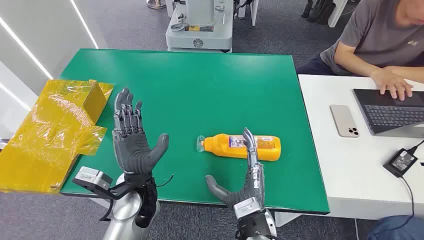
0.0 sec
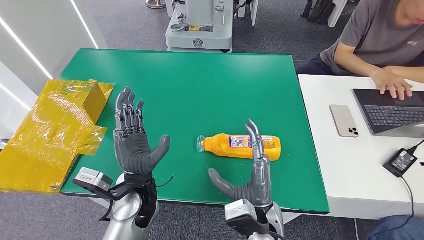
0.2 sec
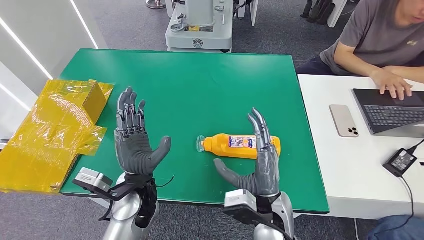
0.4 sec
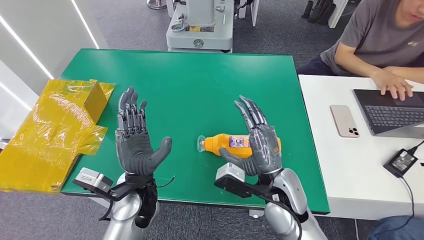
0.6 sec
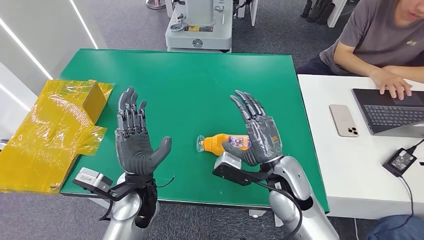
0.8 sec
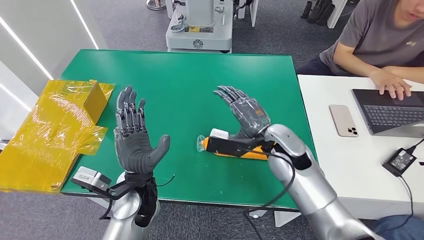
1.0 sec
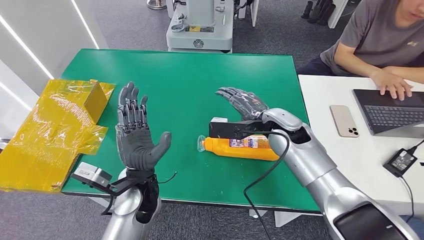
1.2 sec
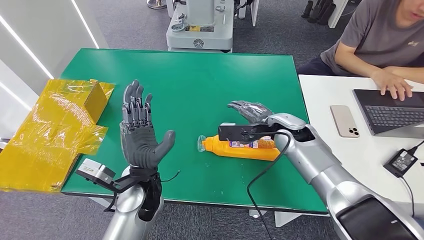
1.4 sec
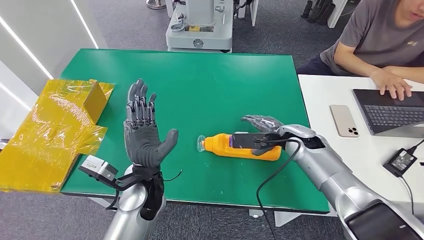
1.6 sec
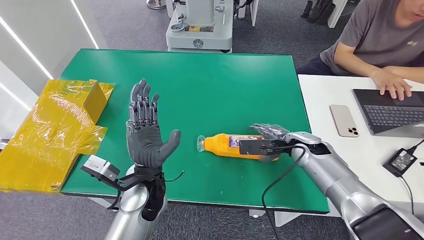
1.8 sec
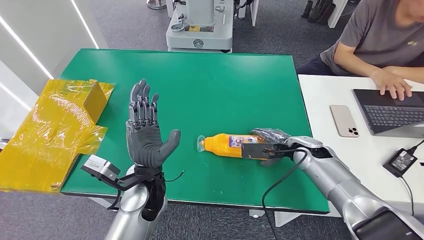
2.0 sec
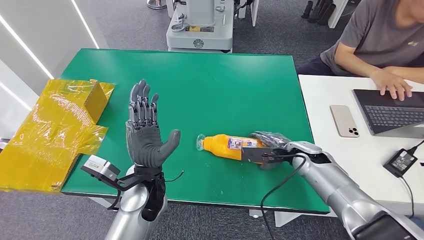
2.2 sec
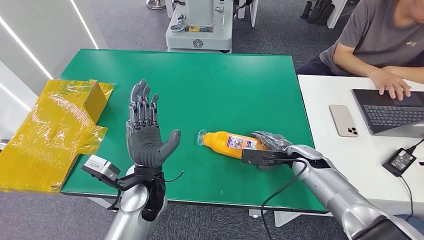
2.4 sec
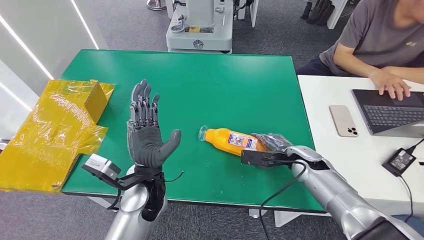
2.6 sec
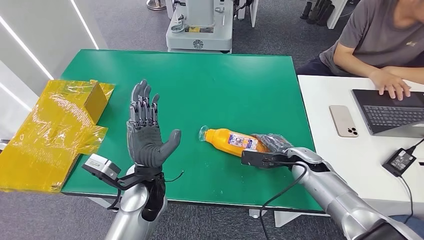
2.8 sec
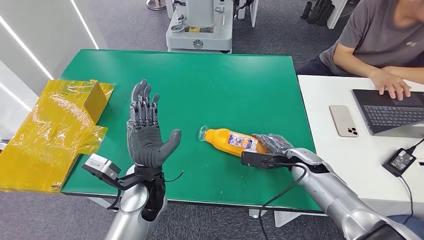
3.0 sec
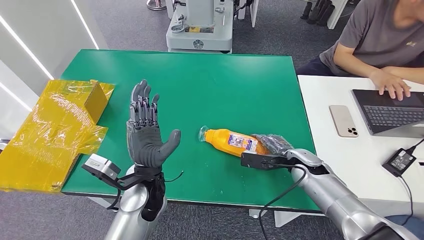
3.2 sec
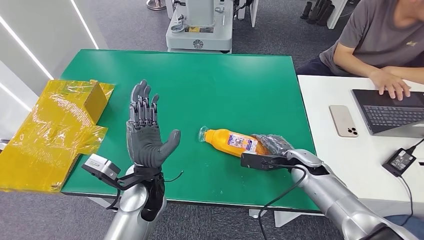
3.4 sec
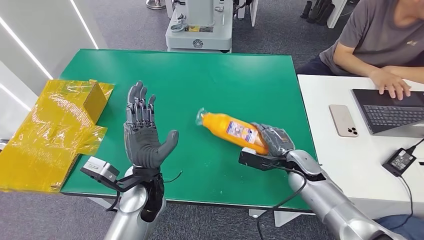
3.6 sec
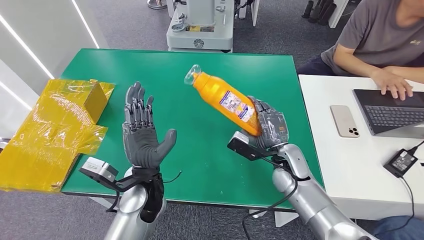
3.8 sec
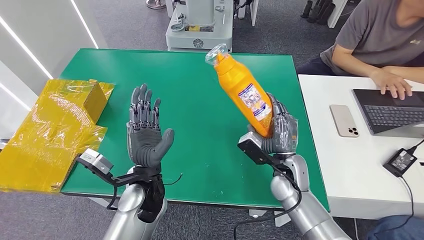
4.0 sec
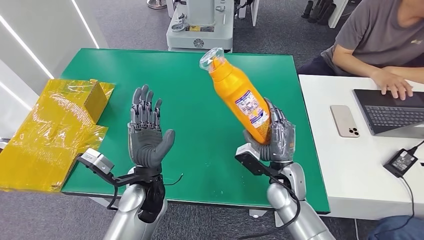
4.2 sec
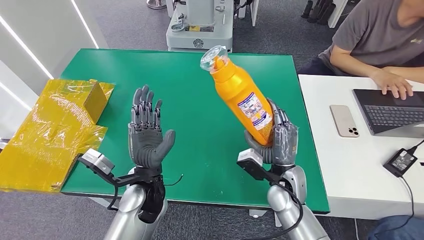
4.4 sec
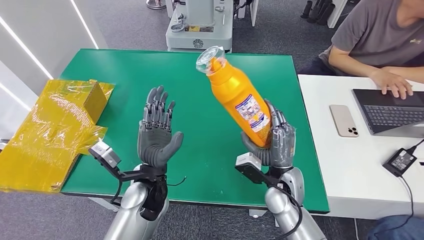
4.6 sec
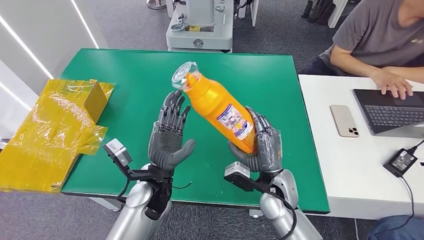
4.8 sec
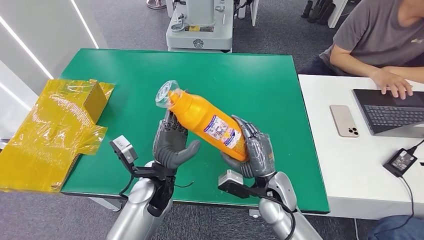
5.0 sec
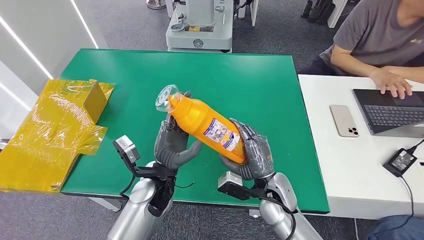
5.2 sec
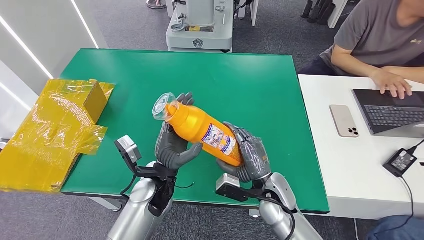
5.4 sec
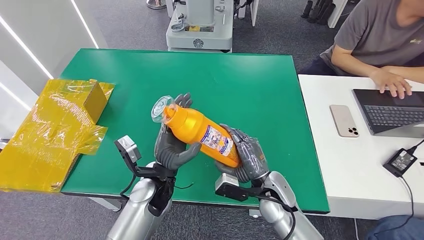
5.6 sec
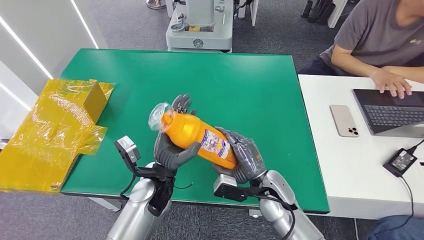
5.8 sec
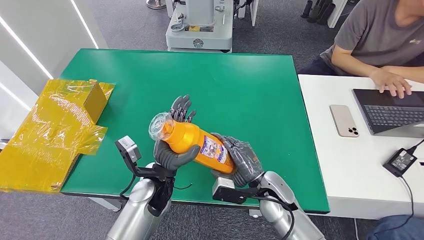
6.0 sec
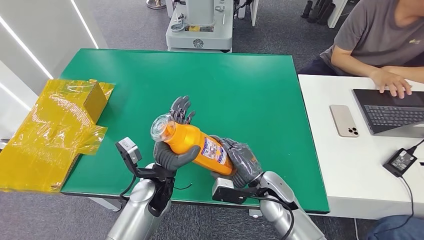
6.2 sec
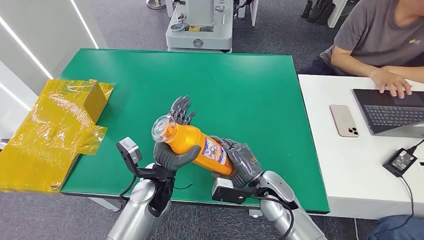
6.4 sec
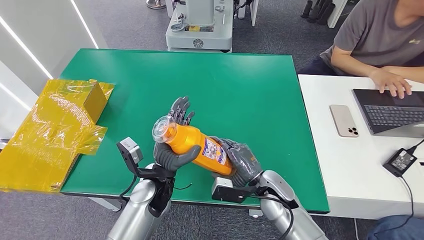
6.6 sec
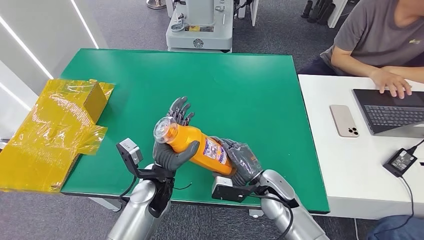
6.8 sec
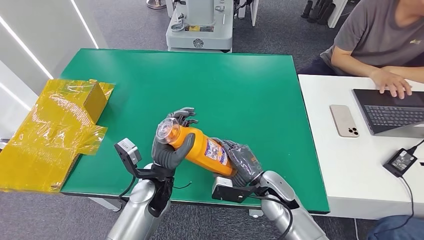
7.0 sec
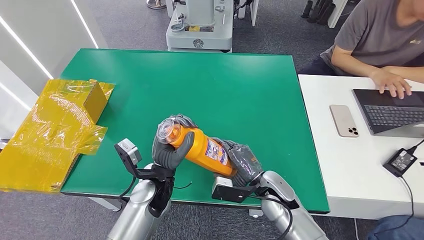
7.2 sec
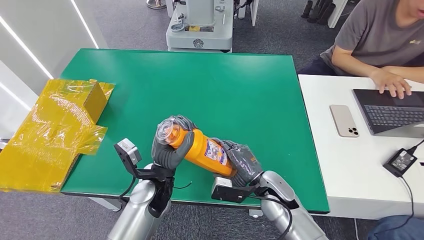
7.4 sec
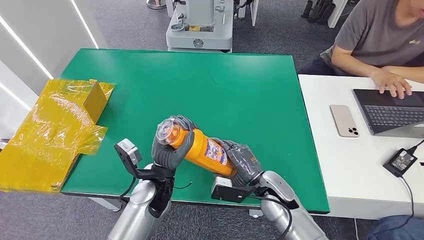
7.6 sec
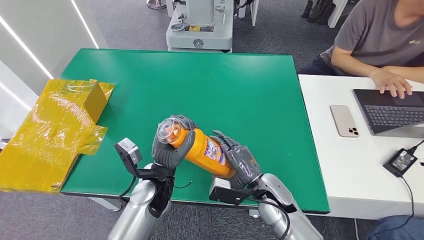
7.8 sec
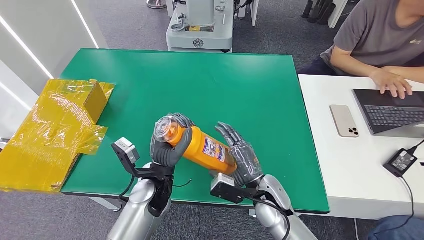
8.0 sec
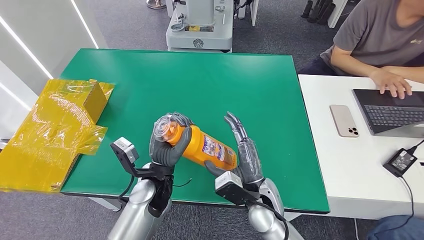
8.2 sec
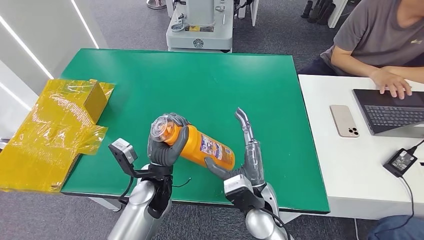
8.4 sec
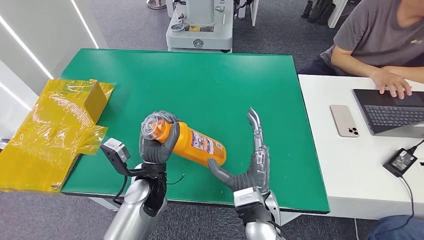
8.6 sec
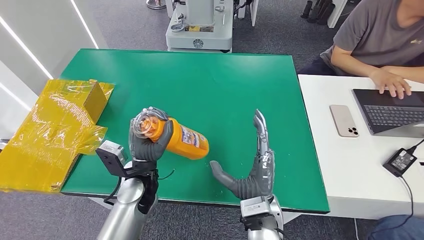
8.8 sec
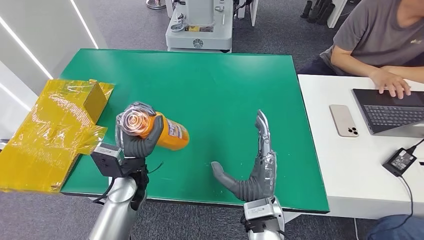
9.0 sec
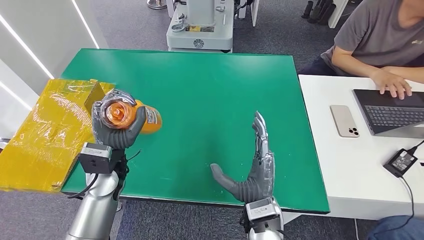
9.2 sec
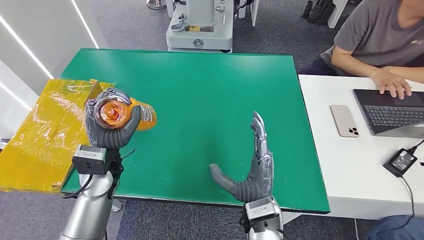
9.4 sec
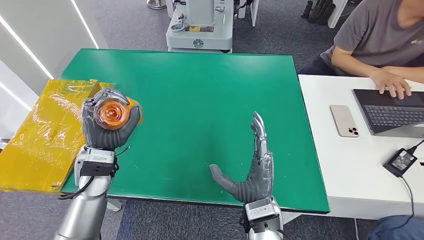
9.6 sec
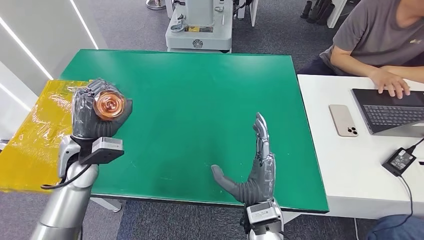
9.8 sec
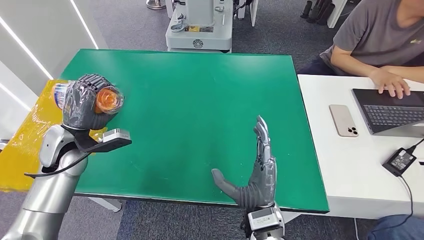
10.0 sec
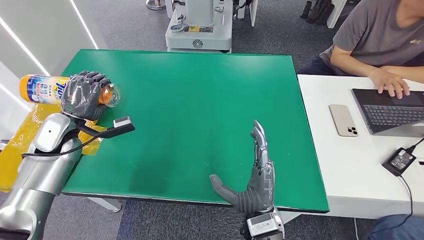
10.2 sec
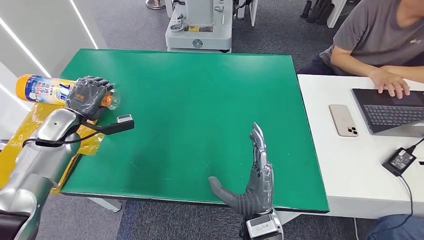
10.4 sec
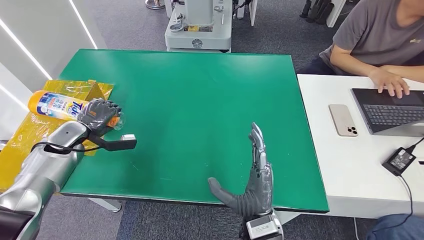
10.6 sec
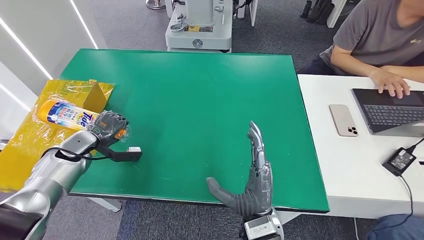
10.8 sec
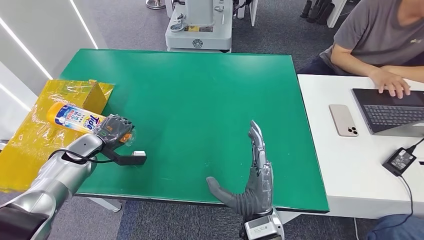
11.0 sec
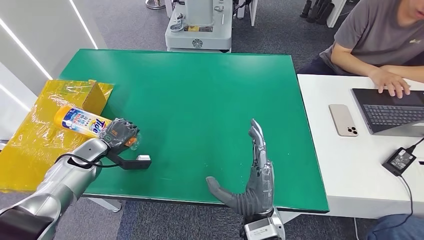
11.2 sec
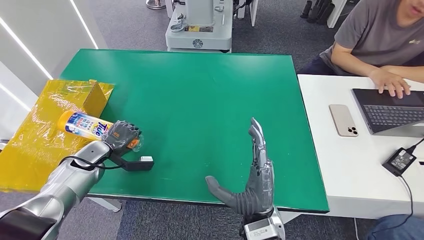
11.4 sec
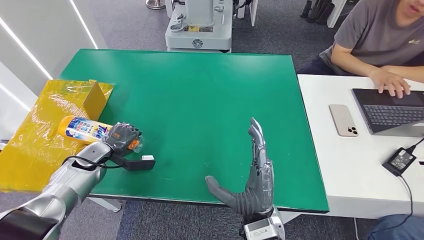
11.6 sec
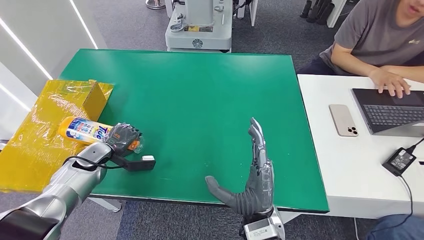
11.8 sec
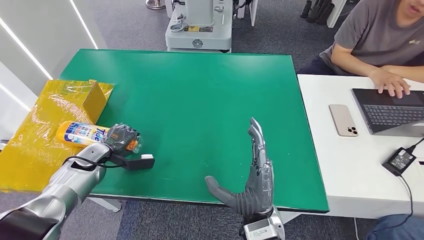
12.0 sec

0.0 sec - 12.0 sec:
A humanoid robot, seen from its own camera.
Step, 0.0 sec - 6.6 sec: Pick up the bottle from the table.
1.6 sec - 3.0 sec: The right hand travels downward by roughly 5 cm.
3.0 sec - 4.4 sec: The right hand goes approximately 15 cm to the left and backward.
6.0 sec - 7.6 sec: The hands move only a little.
7.6 sec - 9.0 sec: The right hand is displaced backward, to the left and upward by some 10 cm. The left hand shifts approximately 5 cm to the left.
9.0 sec - 10.4 sec: The left hand goes some 25 cm to the left and forward.
10.4 sec - 12.0 sec: The left hand is displaced downward by approximately 10 cm.

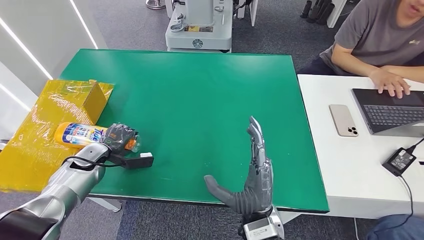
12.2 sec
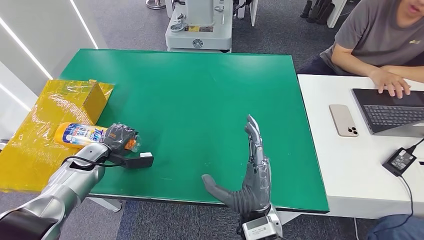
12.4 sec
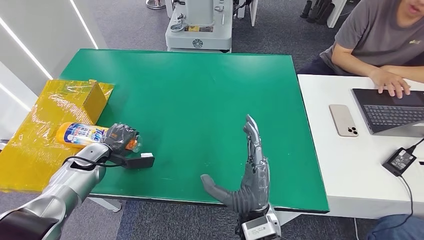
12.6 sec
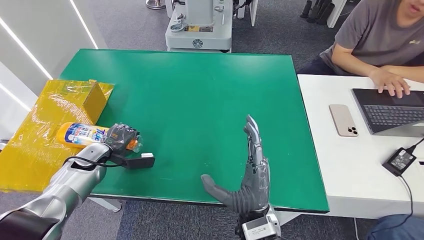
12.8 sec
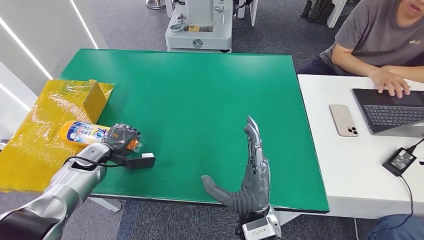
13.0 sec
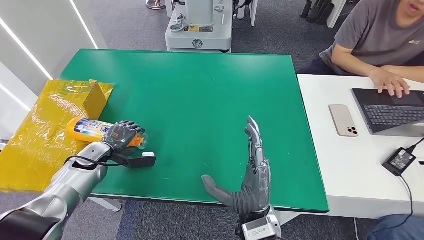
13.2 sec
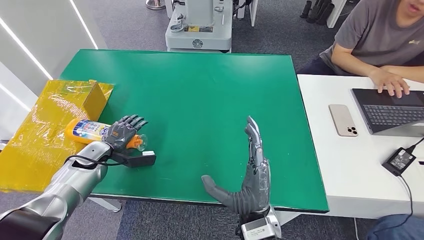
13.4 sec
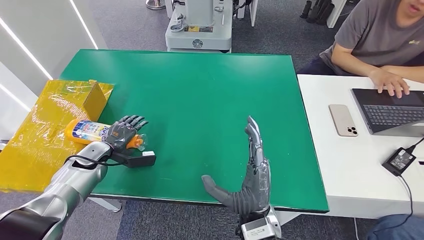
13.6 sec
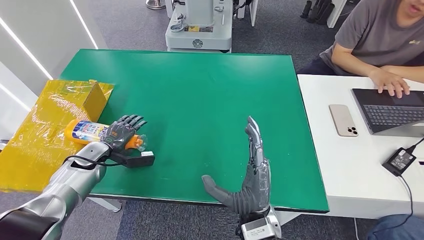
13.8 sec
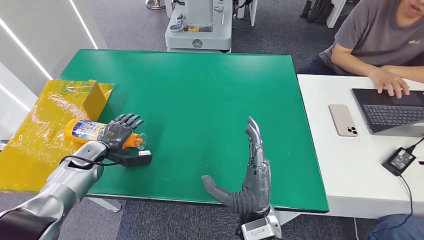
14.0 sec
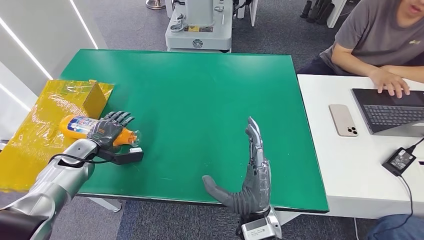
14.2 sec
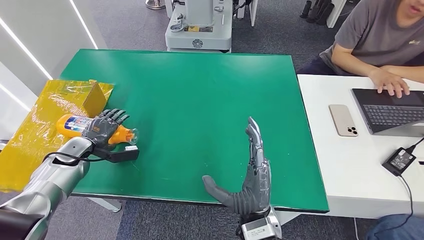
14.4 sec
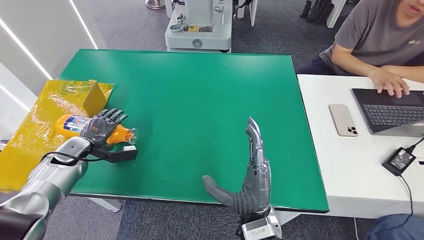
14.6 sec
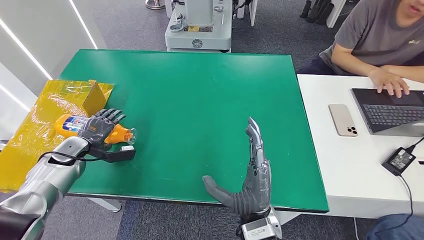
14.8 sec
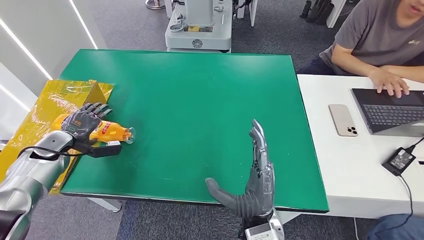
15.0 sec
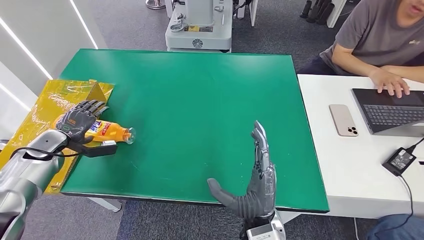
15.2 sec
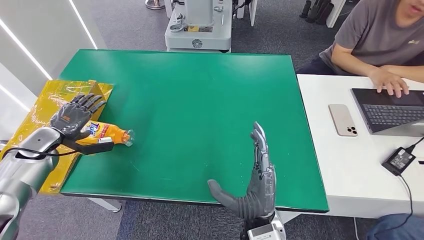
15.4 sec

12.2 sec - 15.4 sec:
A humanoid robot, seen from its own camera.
Step, 12.2 sec - 15.4 sec: Turn the bottle to the front side.
12.2 sec - 13.8 sec: The two hands keep their place.
13.8 sec - 15.4 sec: The left hand travels to the left and upward by approximately 15 cm.
